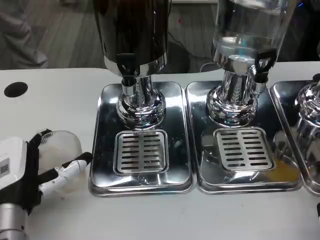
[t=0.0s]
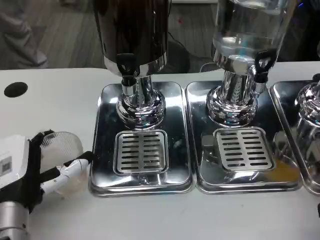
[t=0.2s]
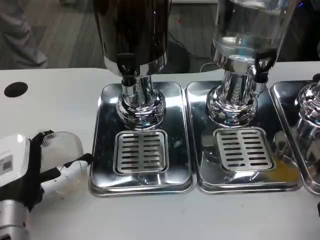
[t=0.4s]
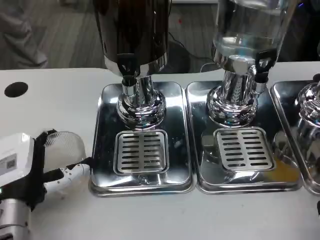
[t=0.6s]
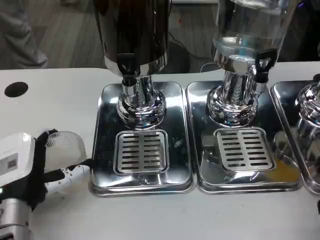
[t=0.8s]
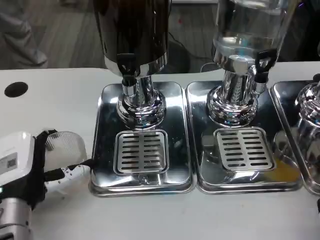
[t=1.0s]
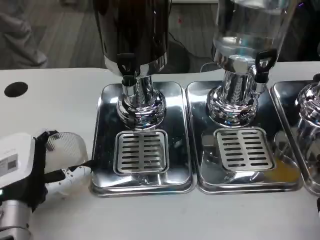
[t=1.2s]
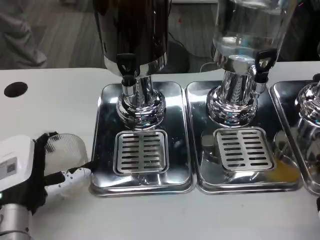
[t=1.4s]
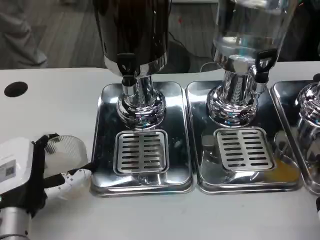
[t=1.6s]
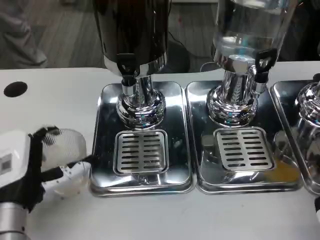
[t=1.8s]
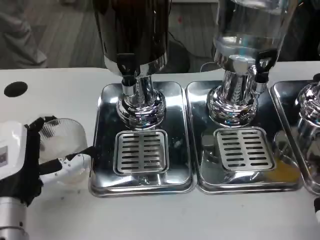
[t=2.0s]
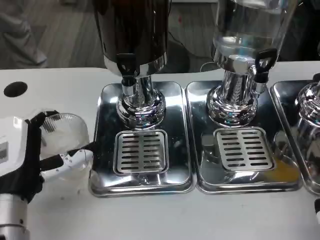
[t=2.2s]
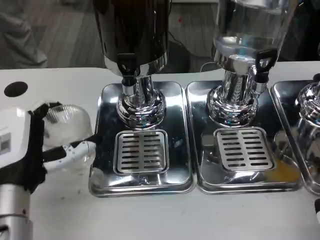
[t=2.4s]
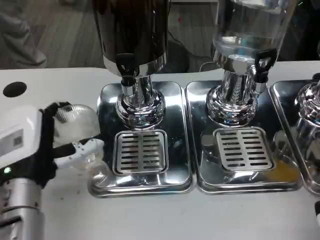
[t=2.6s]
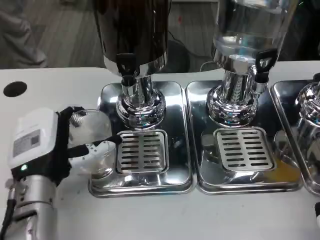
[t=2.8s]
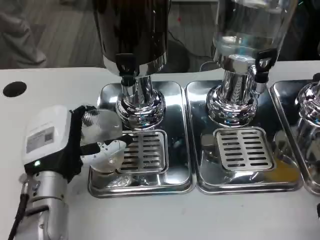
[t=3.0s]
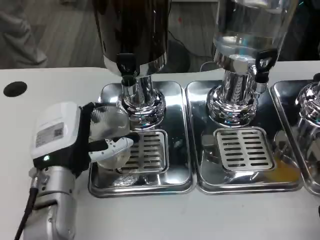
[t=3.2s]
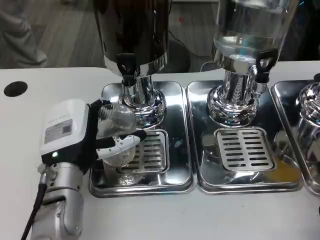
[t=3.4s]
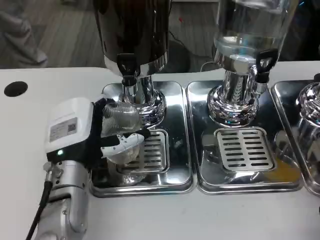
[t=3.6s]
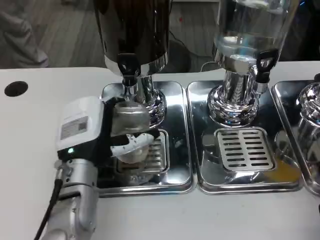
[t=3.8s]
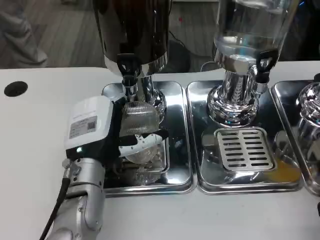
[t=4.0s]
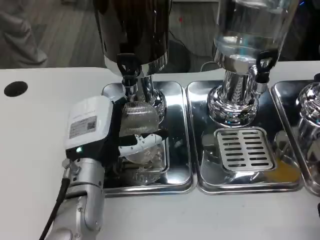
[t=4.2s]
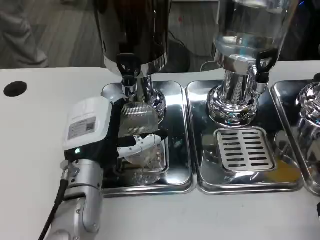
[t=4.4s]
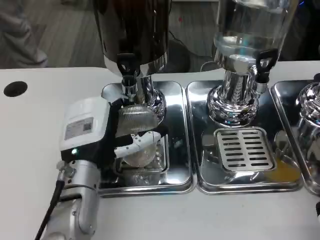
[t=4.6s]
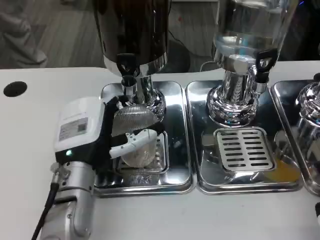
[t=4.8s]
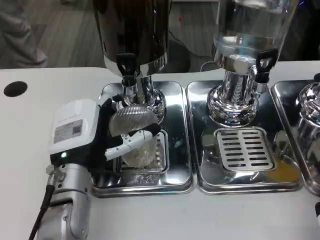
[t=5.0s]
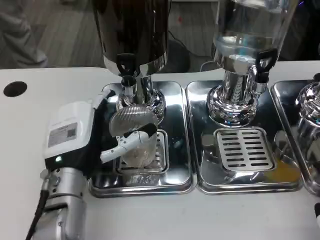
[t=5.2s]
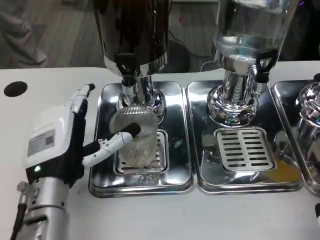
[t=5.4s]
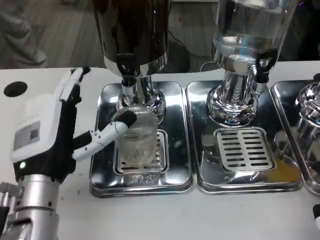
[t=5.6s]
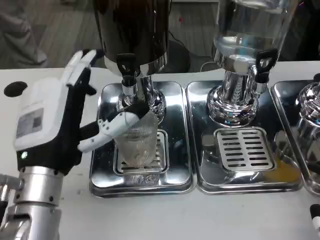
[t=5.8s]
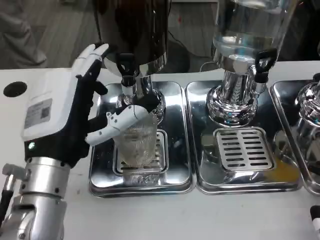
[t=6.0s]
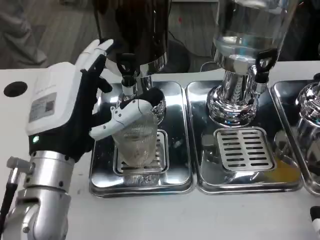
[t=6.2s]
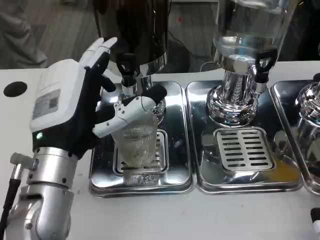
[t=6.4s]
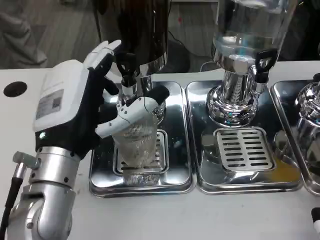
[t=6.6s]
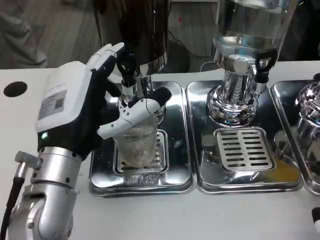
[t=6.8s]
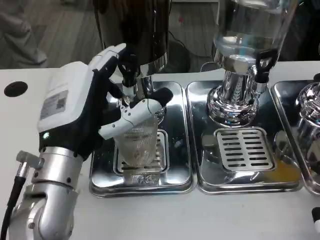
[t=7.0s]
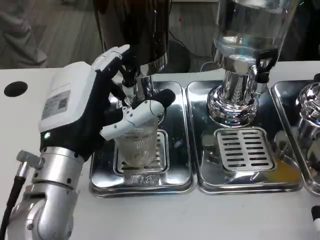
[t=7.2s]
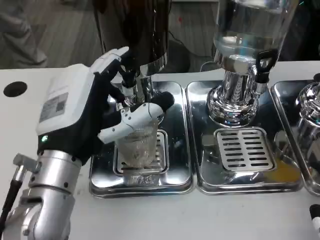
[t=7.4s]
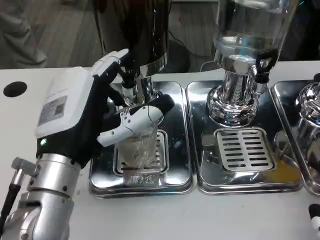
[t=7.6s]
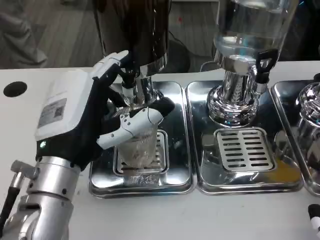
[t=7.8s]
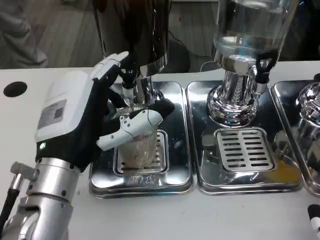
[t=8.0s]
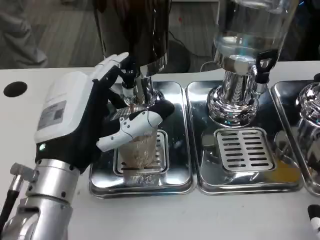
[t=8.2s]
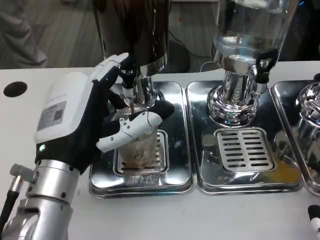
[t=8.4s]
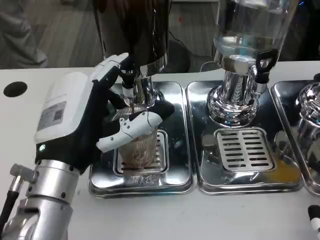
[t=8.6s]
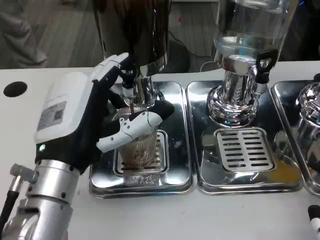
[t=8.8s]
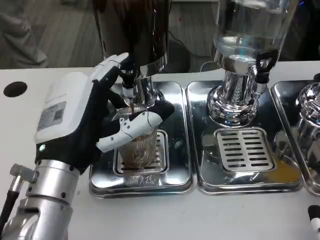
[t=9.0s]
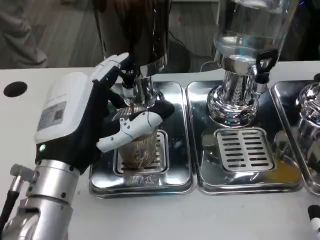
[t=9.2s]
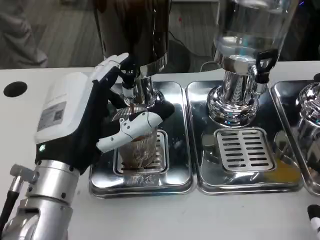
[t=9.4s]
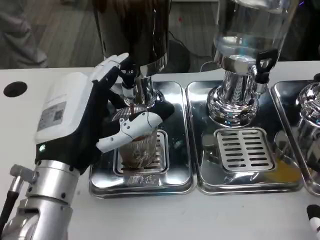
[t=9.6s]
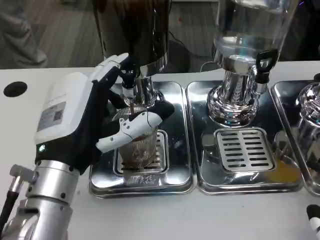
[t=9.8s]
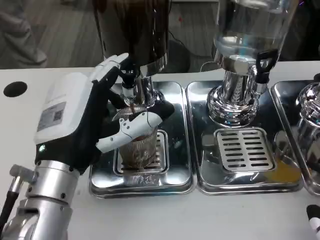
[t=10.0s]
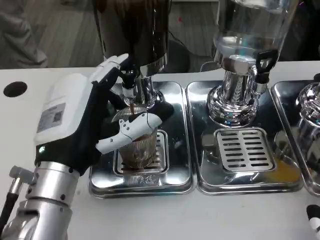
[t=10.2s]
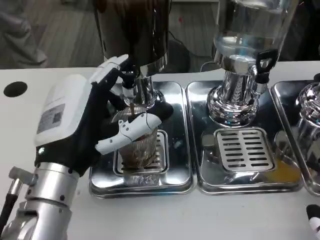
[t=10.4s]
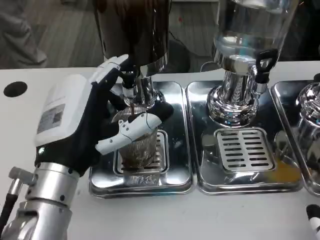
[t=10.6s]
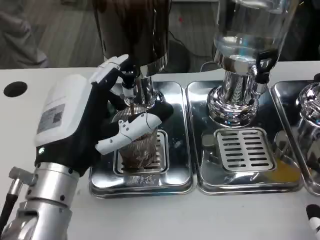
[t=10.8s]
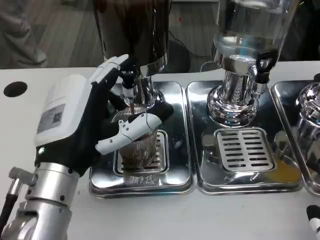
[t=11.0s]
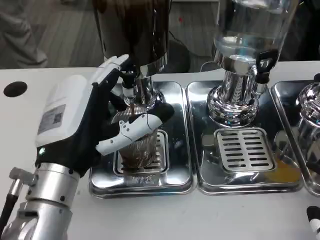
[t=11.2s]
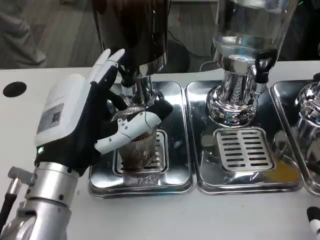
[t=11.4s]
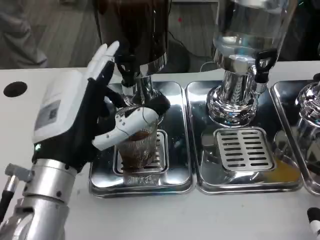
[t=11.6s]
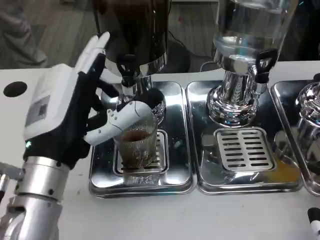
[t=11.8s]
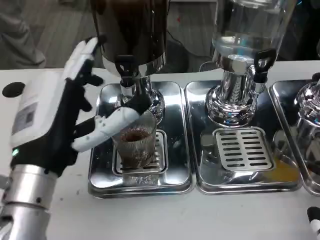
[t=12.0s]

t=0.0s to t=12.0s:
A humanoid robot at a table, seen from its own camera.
Task of the whole recording: Grasp the cup under the faucet to collect the drink, then remove the cup.
t=0.0s to t=1.6s: The hands move only a little.
t=1.6s to t=3.0s: The left hand changes place by about 5 cm.
t=3.0s to t=4.4s: The hands stay close to where they were, moving slightly.
t=4.4s to t=6.0s: The left hand travels upward by some 5 cm.
t=6.0s to t=7.6s: The hands stay close to where they were, moving slightly.
t=7.6s to t=10.4s: Both hands stay put.

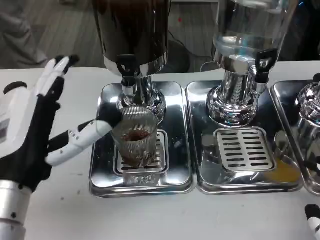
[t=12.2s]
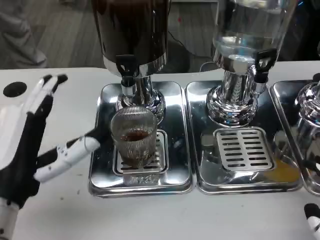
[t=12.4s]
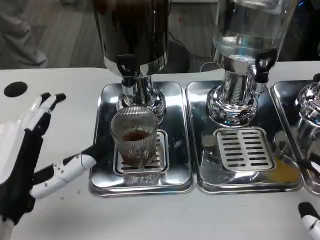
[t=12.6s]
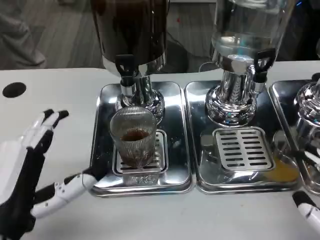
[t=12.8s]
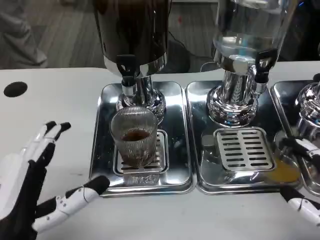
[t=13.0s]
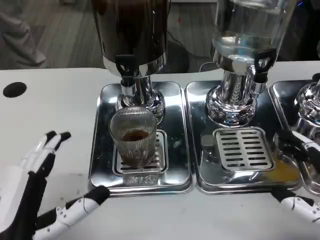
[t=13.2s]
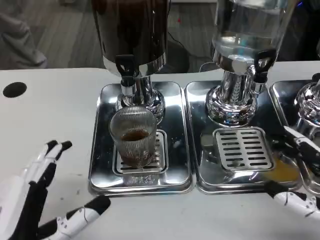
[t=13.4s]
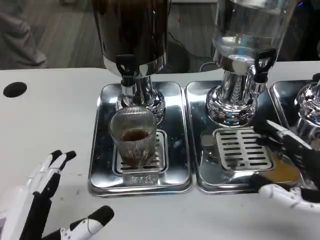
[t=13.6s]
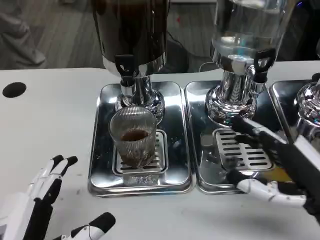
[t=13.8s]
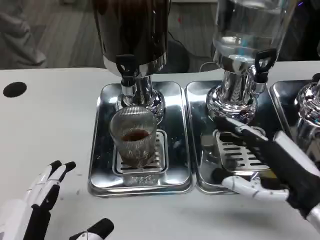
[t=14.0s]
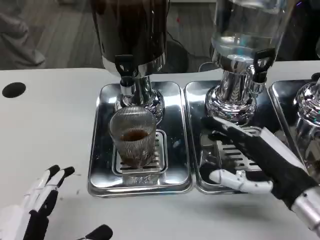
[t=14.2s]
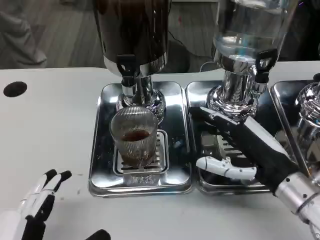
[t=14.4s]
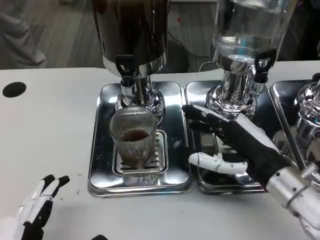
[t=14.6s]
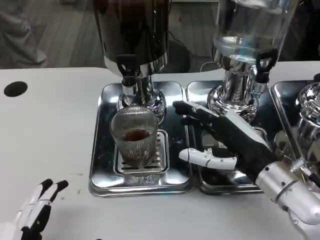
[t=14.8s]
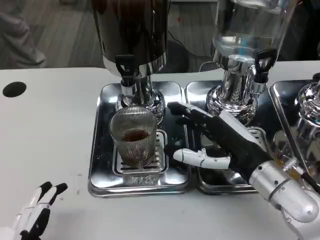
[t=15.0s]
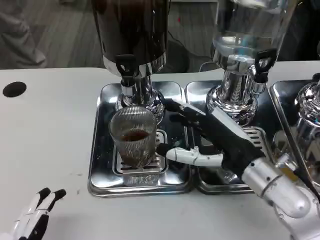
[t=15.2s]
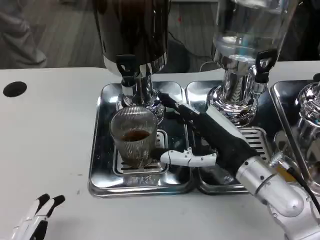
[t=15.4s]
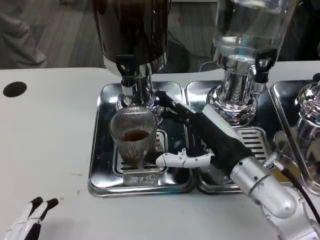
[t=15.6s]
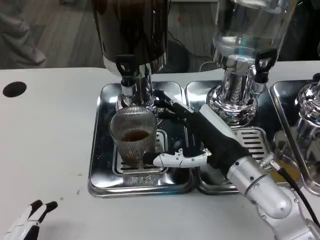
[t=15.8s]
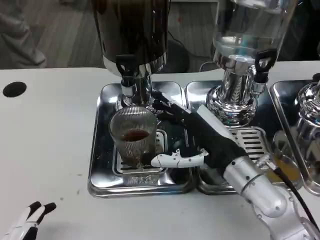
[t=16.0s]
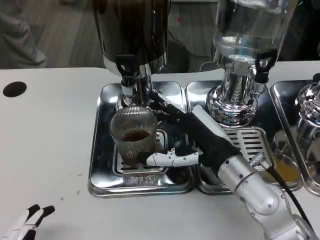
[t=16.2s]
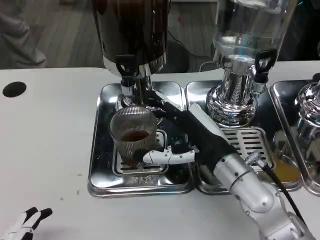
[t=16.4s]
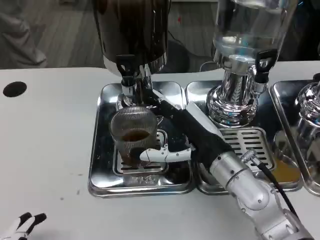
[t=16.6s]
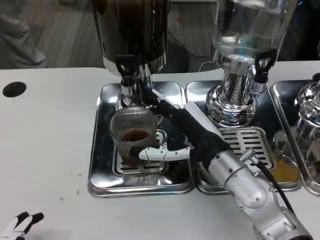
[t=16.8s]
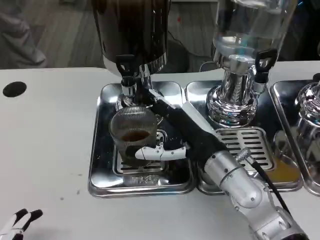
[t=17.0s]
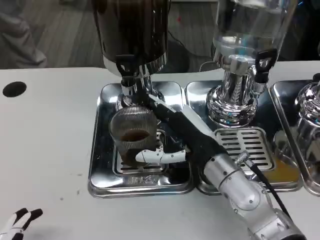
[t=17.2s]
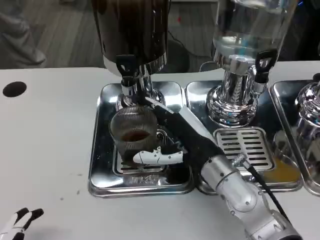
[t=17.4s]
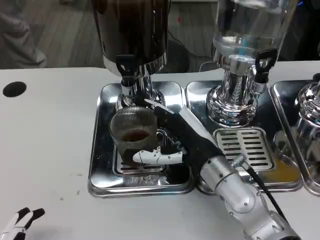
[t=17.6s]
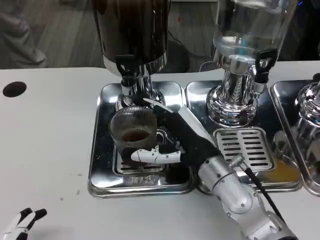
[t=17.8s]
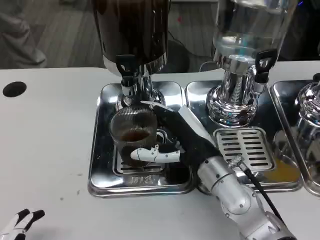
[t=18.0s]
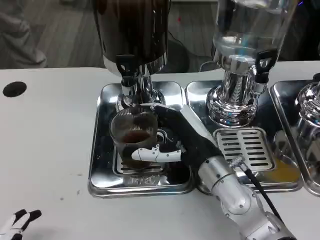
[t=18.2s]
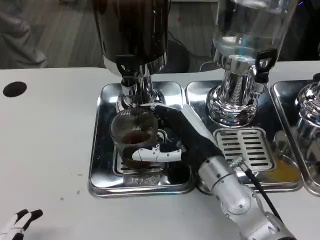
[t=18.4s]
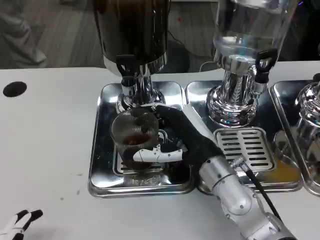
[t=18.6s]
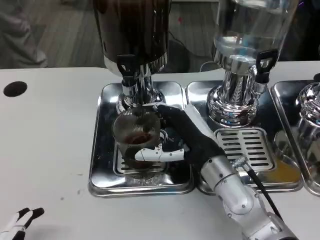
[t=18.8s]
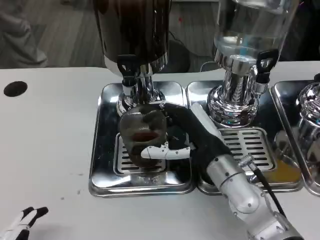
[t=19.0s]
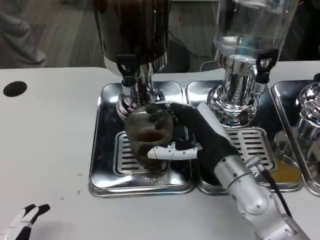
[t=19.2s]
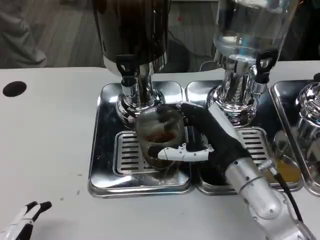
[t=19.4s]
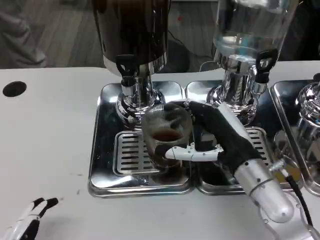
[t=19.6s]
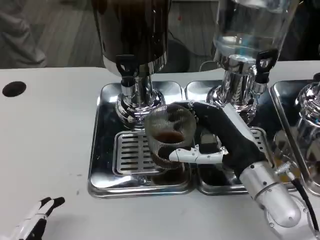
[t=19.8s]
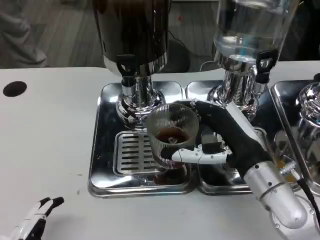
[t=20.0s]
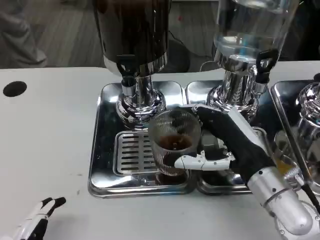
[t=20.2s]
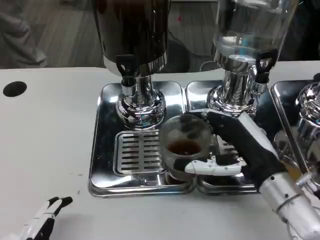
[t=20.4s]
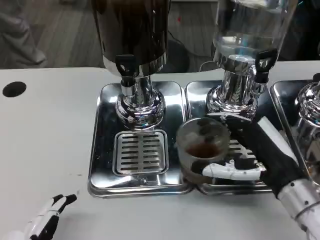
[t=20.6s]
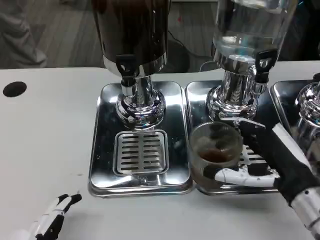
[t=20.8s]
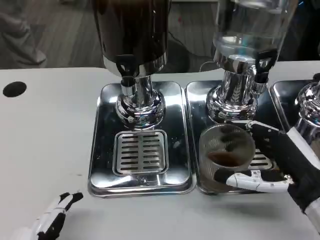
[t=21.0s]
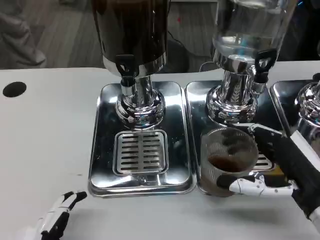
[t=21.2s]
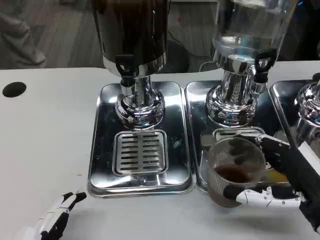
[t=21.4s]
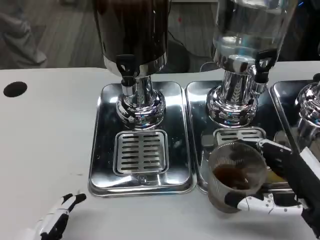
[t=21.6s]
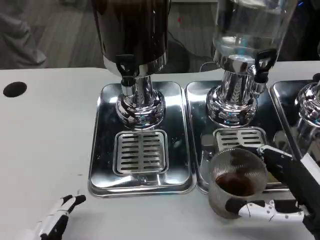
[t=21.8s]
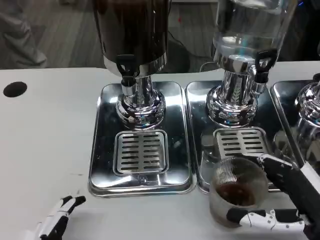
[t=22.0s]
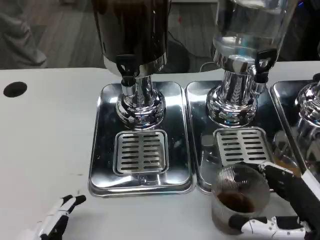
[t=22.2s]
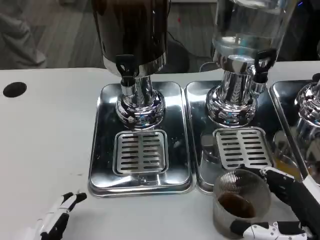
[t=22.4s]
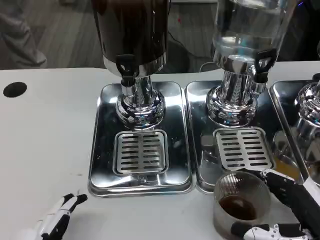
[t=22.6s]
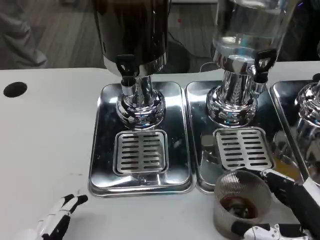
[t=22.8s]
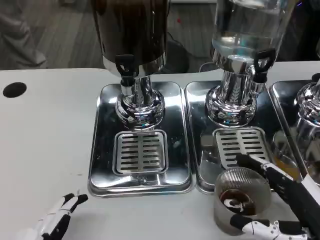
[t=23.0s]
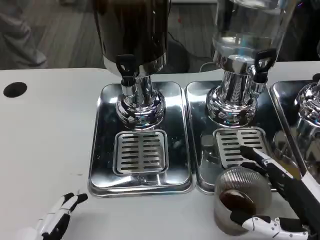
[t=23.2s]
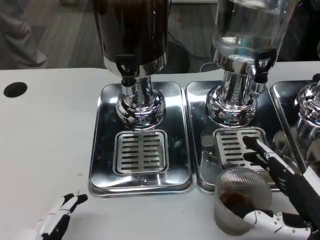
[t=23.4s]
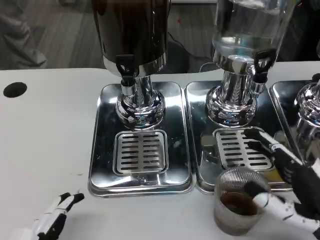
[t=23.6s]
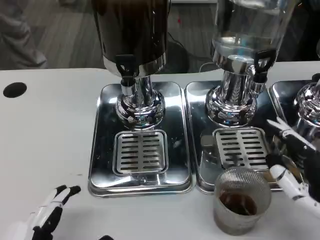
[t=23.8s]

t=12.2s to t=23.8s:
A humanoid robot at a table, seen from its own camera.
Task of the whole recording: Grasp the cup under the faucet to collect the drink, then remove the cup.
t=12.2s to t=13.6s: The right hand moves forward, roughly 10 cm; the left hand is displaced backward and downward by approximately 10 cm.
t=13.6s to t=15.0s: The left hand heads backward, covering approximately 5 cm. The right hand goes roughly 15 cm forward and to the left.
t=15.0s to t=16.6s: The right hand is displaced to the left by some 5 cm.
t=16.6s to t=19.4s: The hands make only small movements.
t=19.4s to t=21.0s: The right hand goes approximately 10 cm to the right and backward.
t=21.0s to t=22.4s: The right hand travels backward by roughly 5 cm.
t=22.4s to t=23.8s: There are only small adjustments of the hands.
